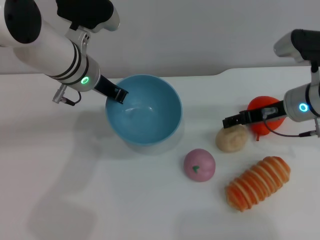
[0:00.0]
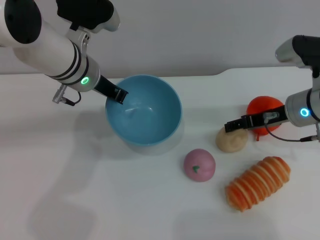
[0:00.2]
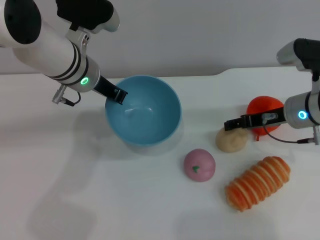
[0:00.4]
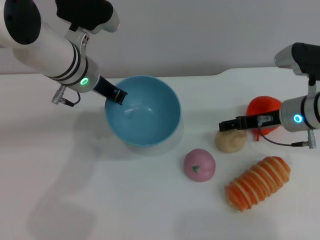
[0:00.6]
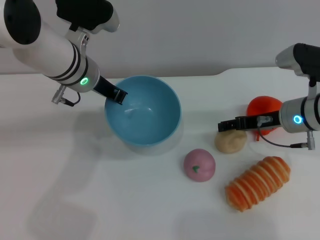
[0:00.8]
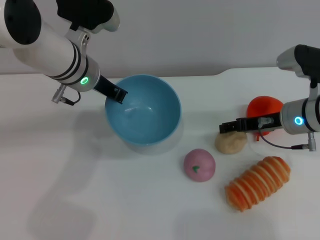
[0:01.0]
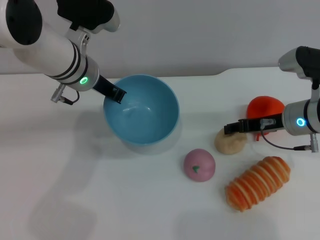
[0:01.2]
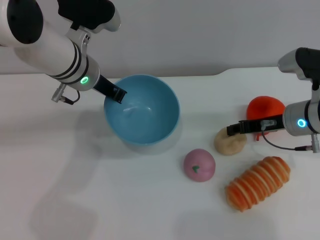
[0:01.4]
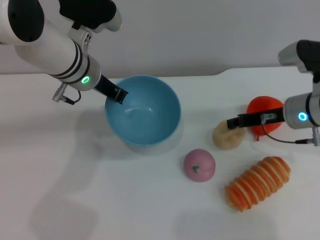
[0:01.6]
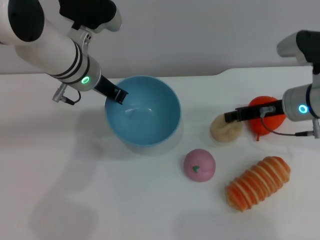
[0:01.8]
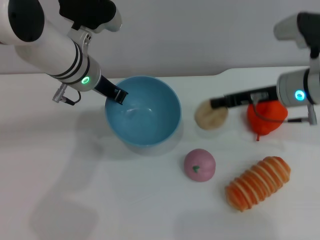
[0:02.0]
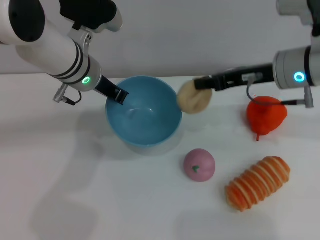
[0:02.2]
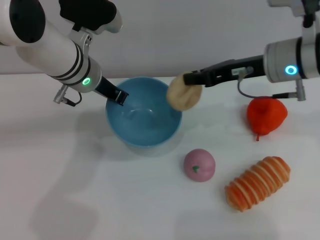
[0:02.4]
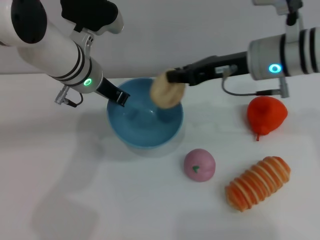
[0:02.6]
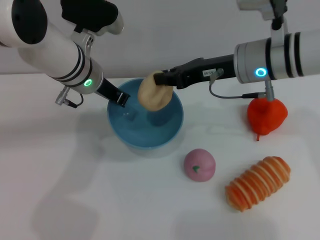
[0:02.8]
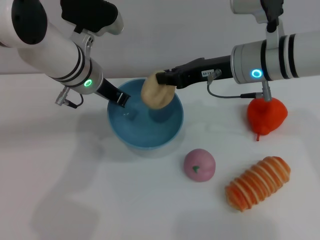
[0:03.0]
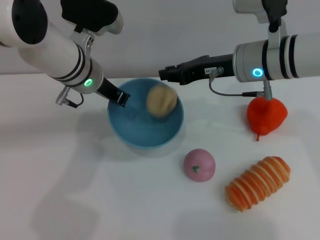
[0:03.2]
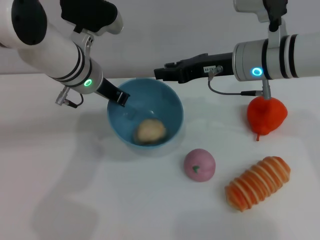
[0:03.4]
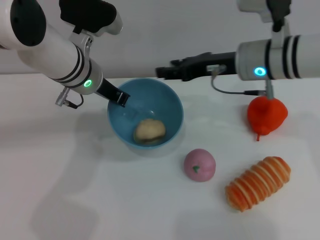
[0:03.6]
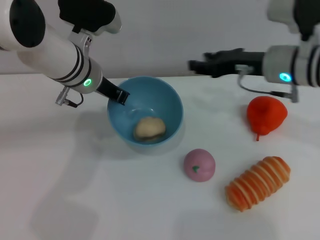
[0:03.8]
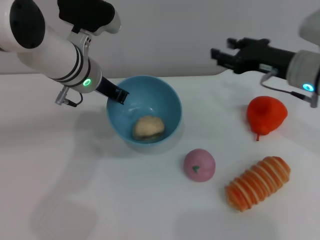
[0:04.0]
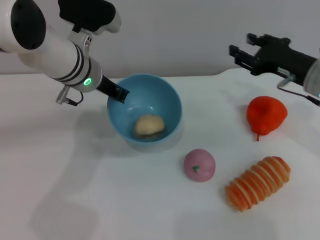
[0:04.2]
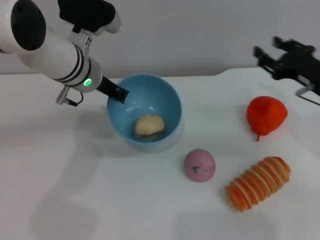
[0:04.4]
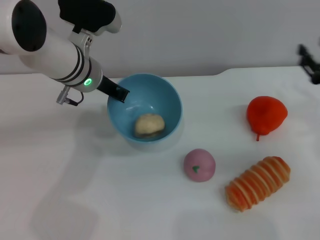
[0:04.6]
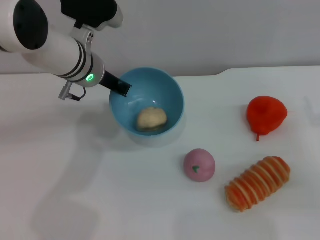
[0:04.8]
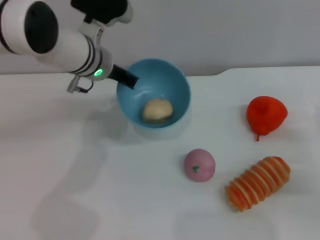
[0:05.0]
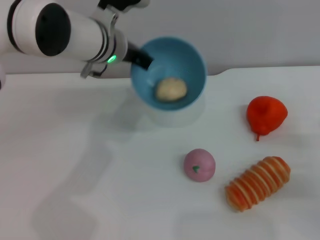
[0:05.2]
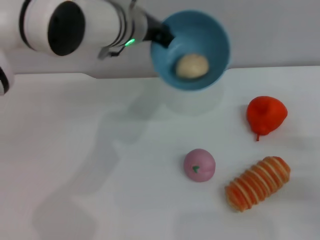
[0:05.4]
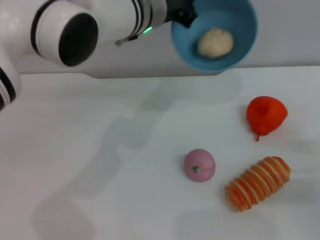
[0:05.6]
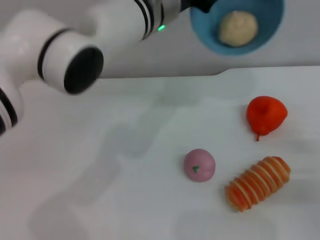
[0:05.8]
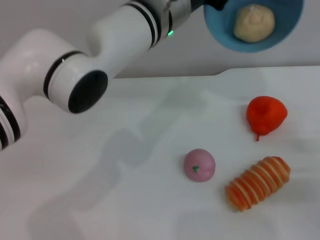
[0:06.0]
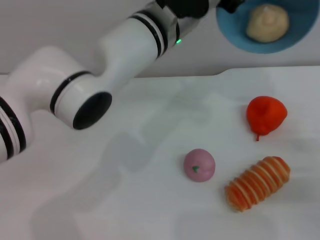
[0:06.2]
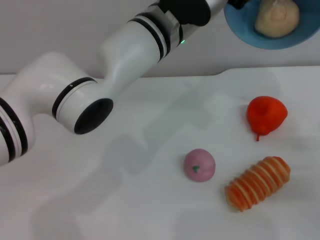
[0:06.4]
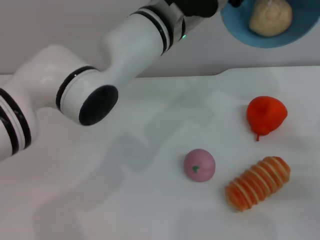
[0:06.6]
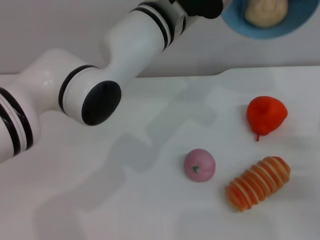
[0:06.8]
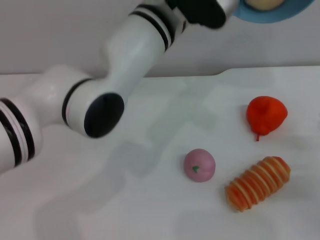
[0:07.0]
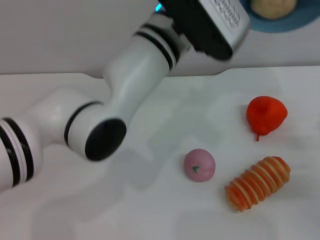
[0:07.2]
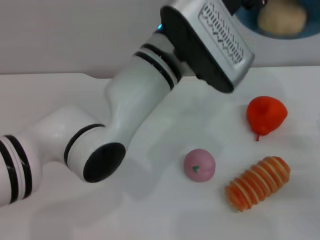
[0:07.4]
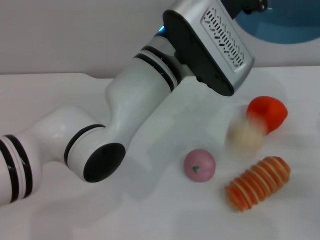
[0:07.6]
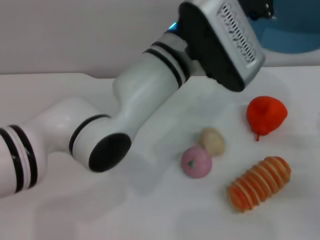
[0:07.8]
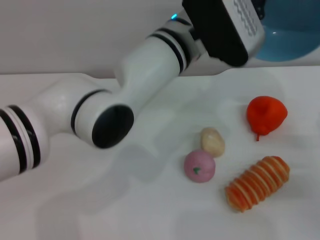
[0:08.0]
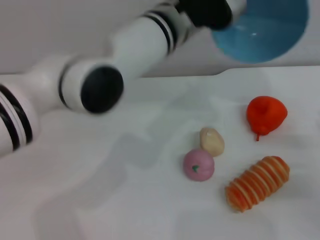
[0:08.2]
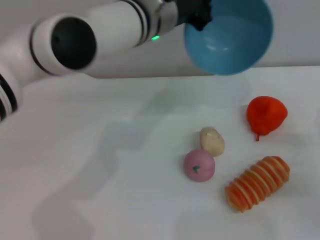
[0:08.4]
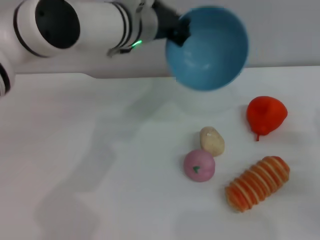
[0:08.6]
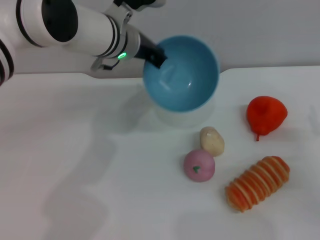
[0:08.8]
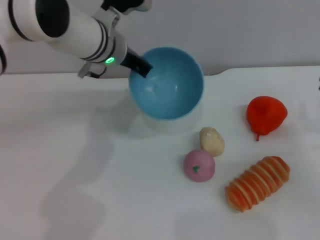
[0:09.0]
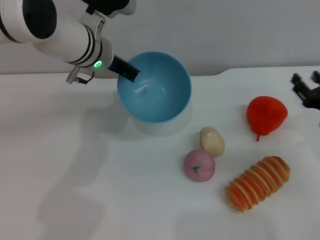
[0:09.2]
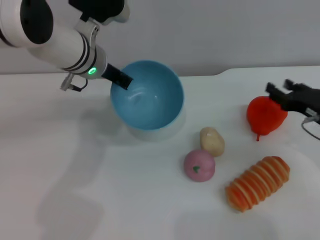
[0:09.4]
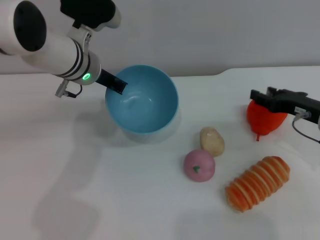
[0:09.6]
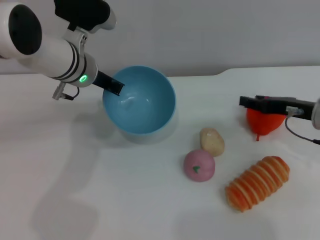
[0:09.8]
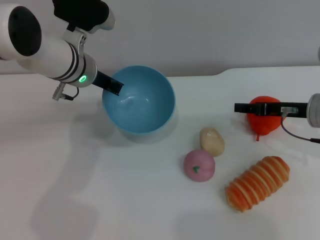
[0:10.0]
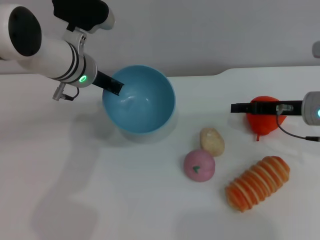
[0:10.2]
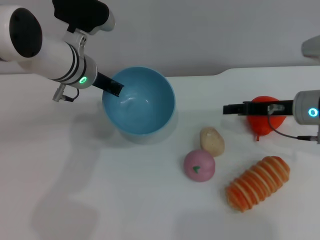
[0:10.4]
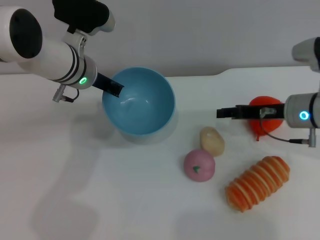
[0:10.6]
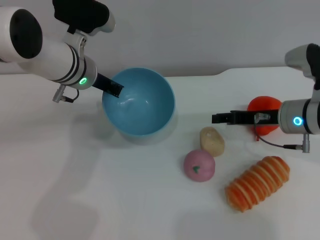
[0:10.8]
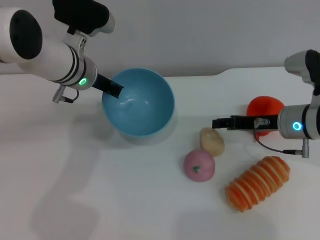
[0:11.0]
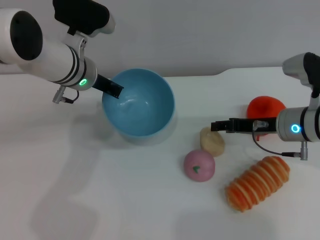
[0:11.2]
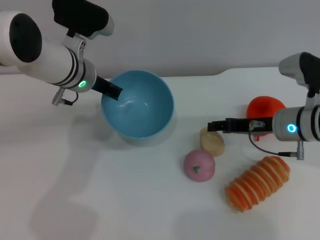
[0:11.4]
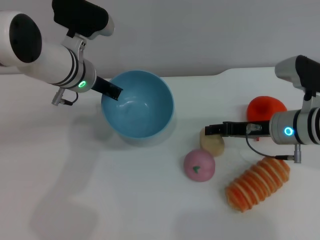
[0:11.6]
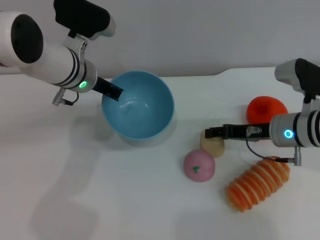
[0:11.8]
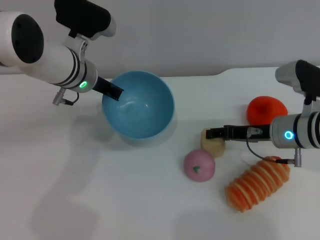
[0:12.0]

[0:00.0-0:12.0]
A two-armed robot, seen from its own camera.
Task of the whole recording: put the egg yolk pastry into the blue bowl and pour it out repeatedly.
Step, 0:00.0 to 0:01.8: Pick up the egg yolk pastry with the right gripper.
Step, 0:02.0 to 0:03.4: Place the egg yolk pastry into the bowl.
Step, 0:03.6 to 0:08.0: Pour the egg yolk pastry out of bowl.
0:00.0 to 0:01.6: The right gripper closes.
0:01.6 to 0:03.0: The right gripper heads to the left and upward, covering some 10 cm, and closes up.
0:03.0 to 0:04.4: The right gripper is displaced to the right and downward by roughly 15 cm, and opens.
0:04.4 to 0:06.0: The left gripper shifts some 15 cm to the right and upward. Meanwhile the right gripper heads backward, downward and to the right, covering about 15 cm.
0:06.0 to 0:07.6: The left gripper moves backward, about 5 cm.
0:07.6 to 0:09.0: The left gripper goes about 15 cm forward and to the left.
0:09.0 to 0:10.4: The right gripper is displaced forward, to the left and upward by roughly 15 cm, while the left gripper moves roughly 5 cm.
0:10.4 to 0:12.0: The right gripper changes place by about 5 cm.

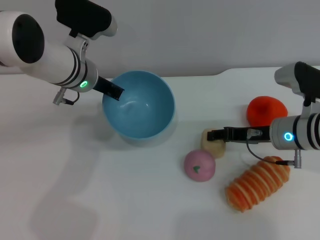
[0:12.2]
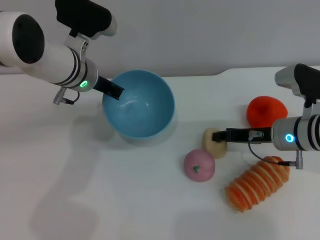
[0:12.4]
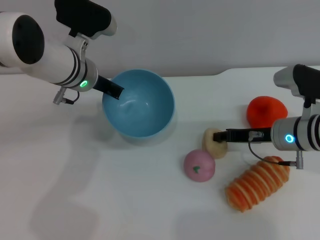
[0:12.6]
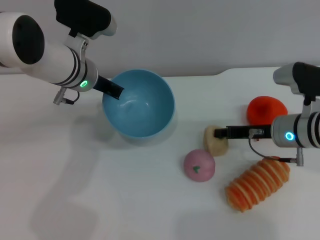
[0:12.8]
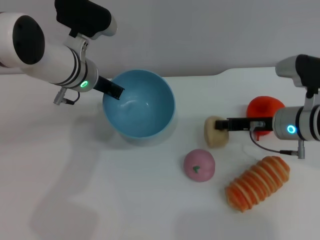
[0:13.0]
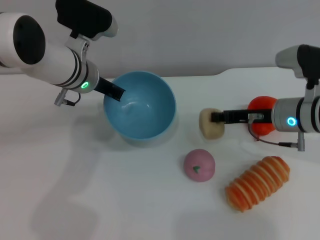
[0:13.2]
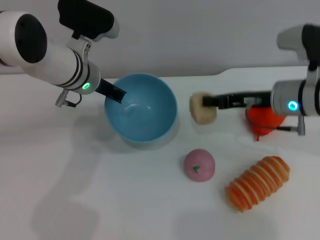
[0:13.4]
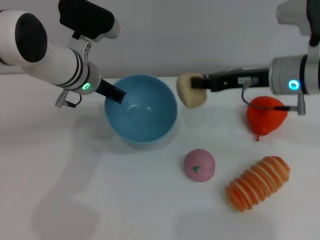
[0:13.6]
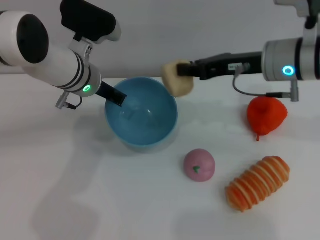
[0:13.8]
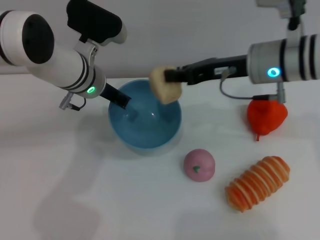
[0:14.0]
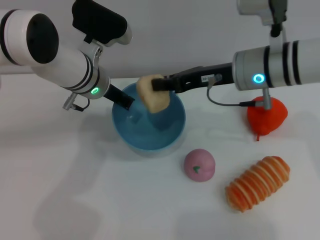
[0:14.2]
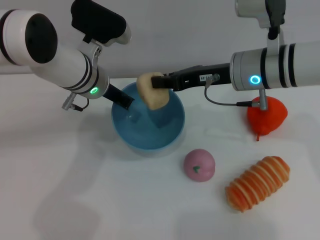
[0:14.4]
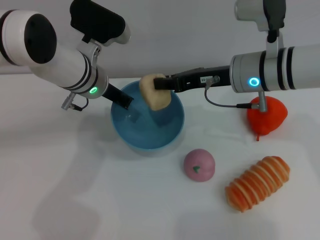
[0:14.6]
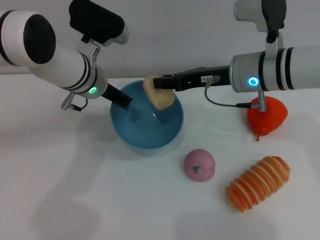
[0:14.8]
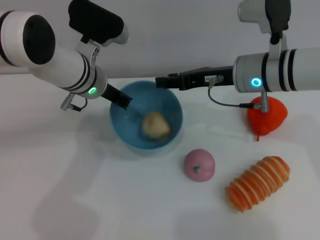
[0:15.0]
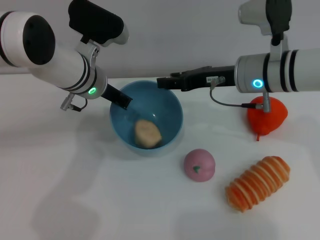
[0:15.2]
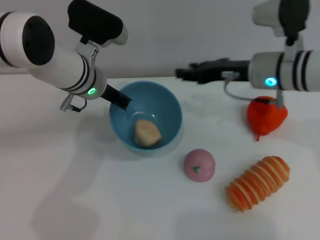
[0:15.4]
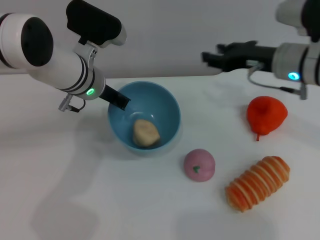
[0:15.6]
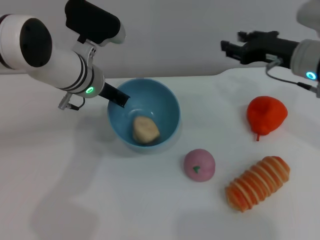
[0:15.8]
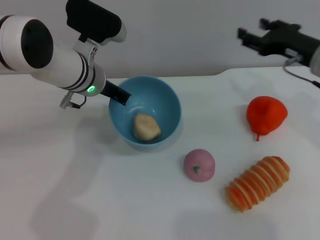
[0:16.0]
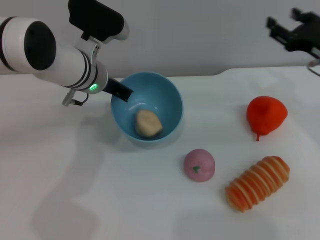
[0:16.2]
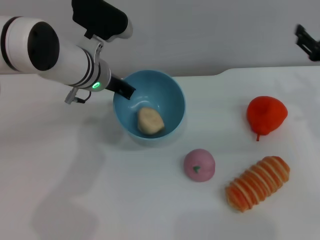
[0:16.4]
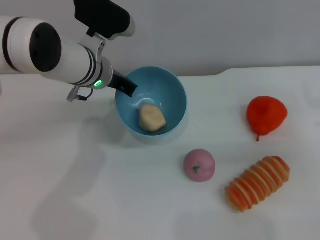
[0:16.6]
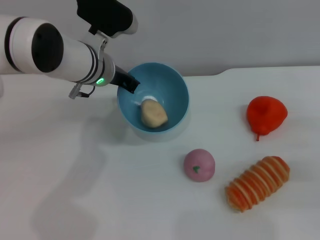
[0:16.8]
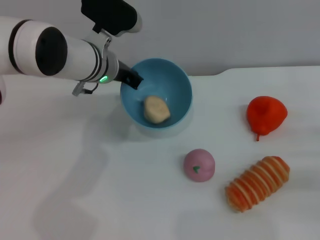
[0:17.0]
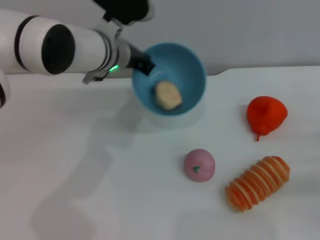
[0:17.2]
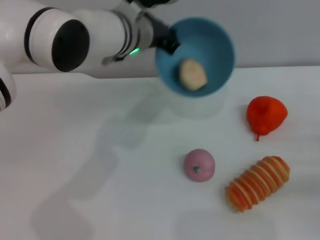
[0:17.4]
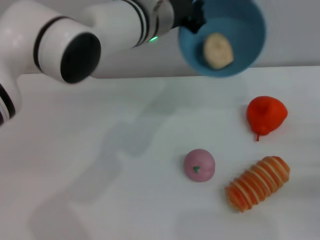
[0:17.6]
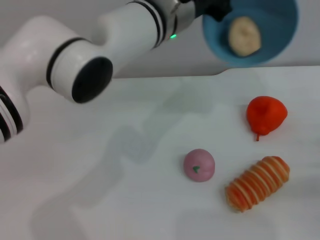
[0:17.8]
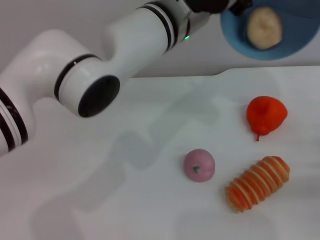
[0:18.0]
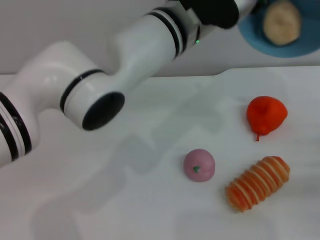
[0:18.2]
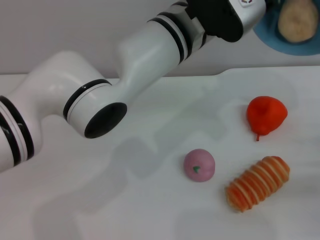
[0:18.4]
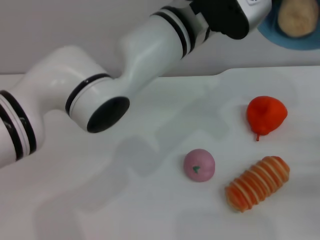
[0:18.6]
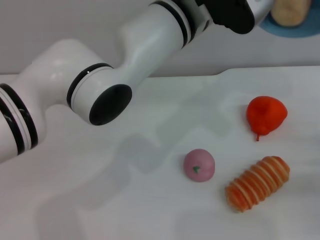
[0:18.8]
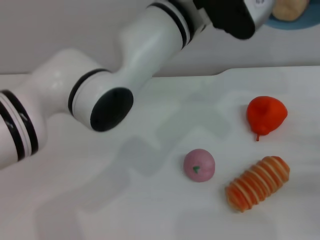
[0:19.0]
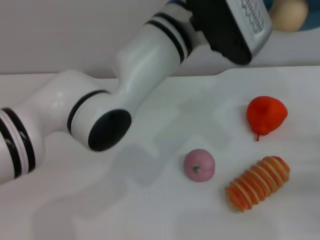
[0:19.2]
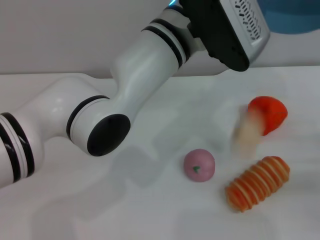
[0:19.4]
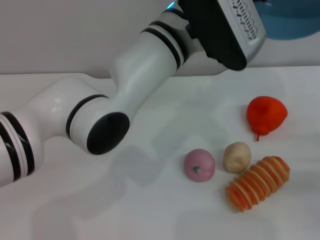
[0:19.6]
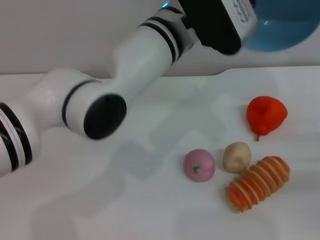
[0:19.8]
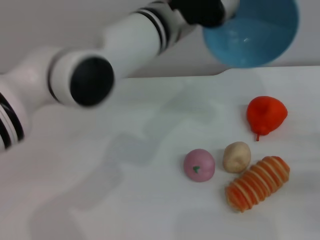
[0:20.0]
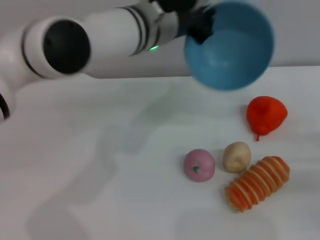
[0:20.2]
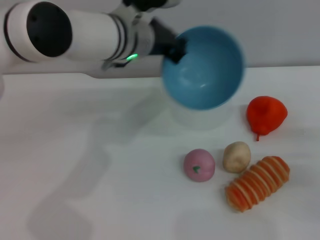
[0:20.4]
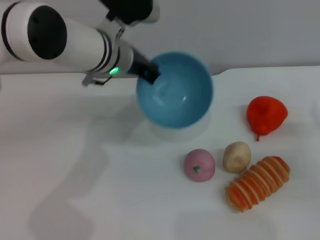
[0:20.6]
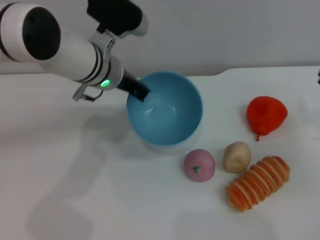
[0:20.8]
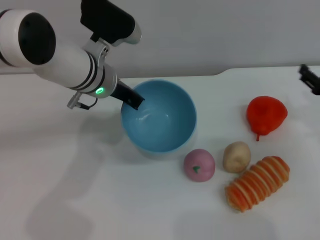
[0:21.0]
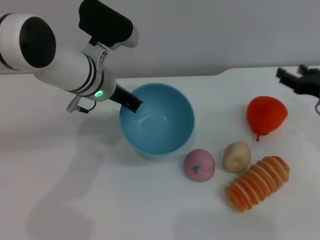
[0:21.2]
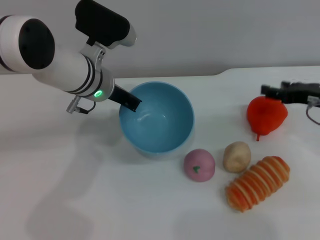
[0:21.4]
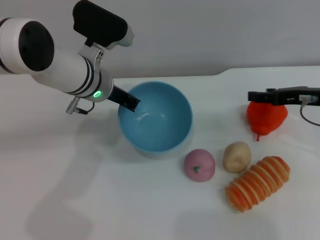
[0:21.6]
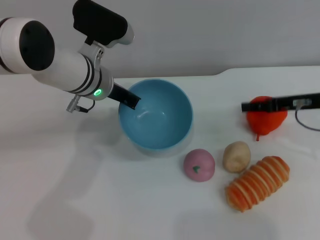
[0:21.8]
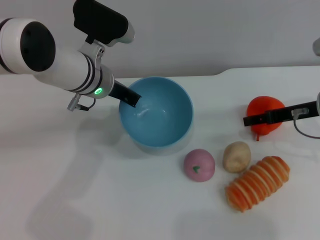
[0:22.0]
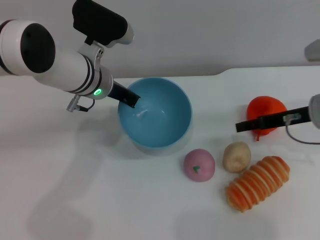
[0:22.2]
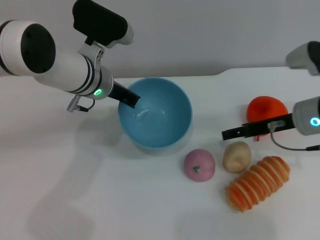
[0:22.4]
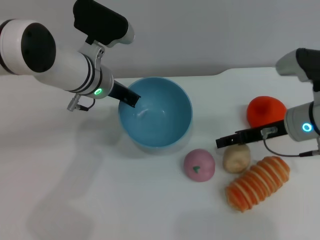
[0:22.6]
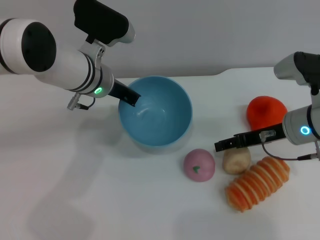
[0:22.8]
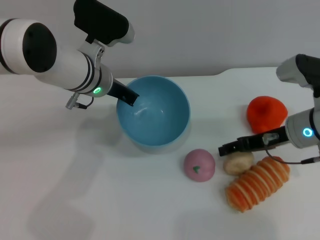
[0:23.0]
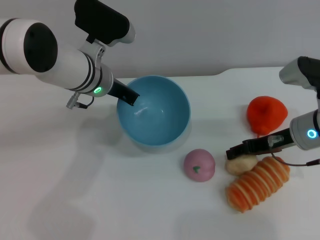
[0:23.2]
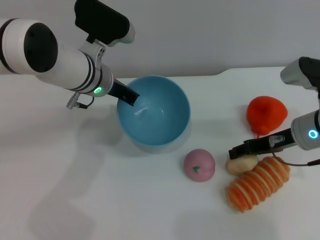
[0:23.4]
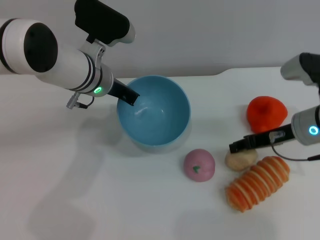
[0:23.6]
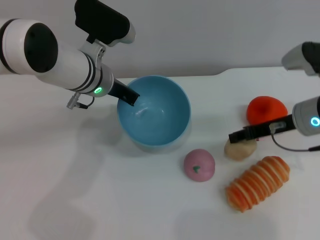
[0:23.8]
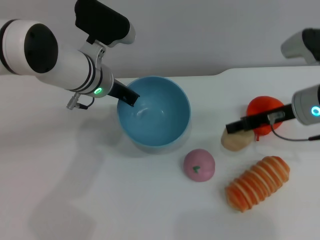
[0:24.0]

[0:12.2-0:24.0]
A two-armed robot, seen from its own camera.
Task of the whole recording: put the egg yolk pastry into the blue bowl and pour it out repeatedly.
Step, 0:13.8 to 0:15.2: Place the egg yolk pastry into the bowl.
Step, 0:15.4 to 0:19.6: Pour the egg yolk pastry out of bowl.
0:12.2 to 0:13.6: The right gripper heads upward, covering roughly 10 cm, and closes.
0:13.6 to 0:15.2: The right gripper opens up.
0:15.2 to 0:16.6: The right gripper is displaced to the right by some 20 cm.
0:16.6 to 0:18.2: The left gripper goes some 15 cm to the right and upward, while the right gripper heads backward and downward, covering roughly 10 cm.
0:19.6 to 0:21.0: The left gripper shifts approximately 15 cm to the left and downward; the right gripper heads forward, covering roughly 5 cm.
0:21.0 to 0:22.6: The right gripper goes approximately 10 cm to the left.
0:22.6 to 0:24.0: There are only small adjustments of the grippers.
